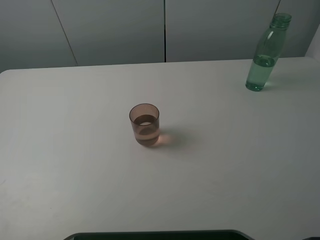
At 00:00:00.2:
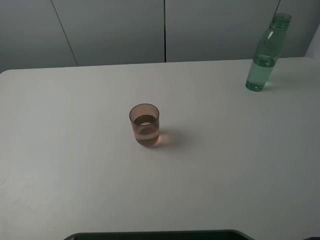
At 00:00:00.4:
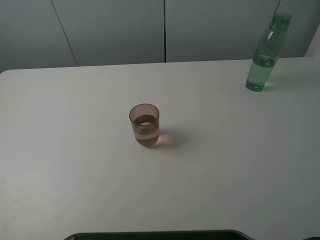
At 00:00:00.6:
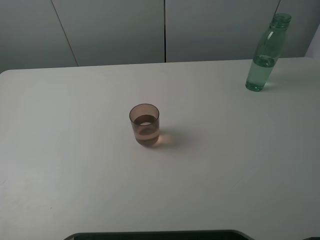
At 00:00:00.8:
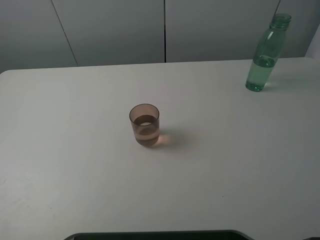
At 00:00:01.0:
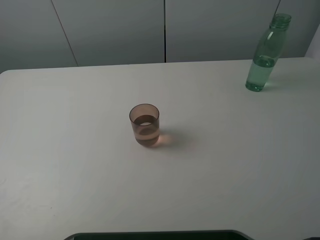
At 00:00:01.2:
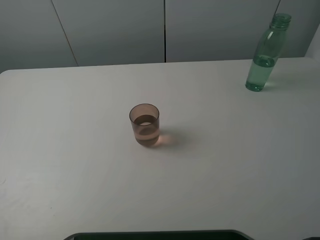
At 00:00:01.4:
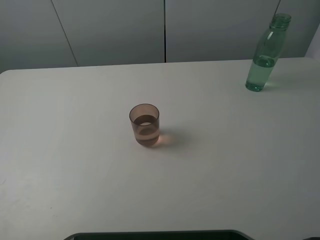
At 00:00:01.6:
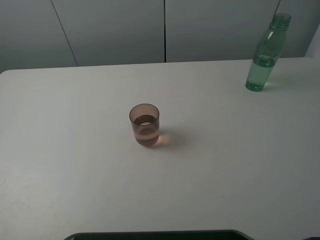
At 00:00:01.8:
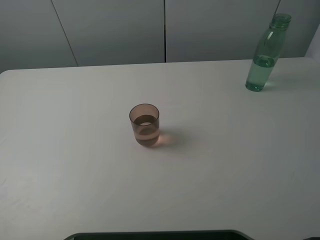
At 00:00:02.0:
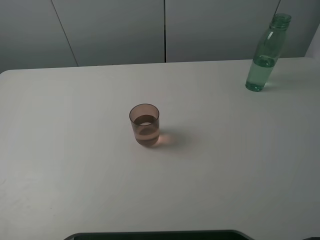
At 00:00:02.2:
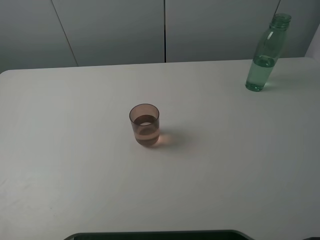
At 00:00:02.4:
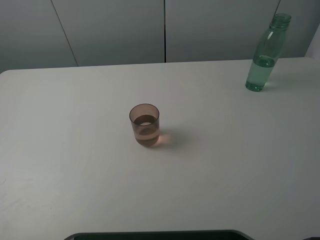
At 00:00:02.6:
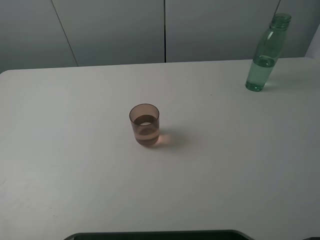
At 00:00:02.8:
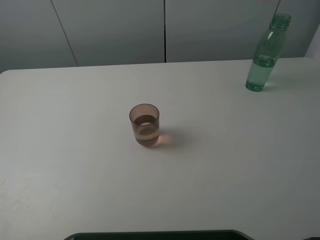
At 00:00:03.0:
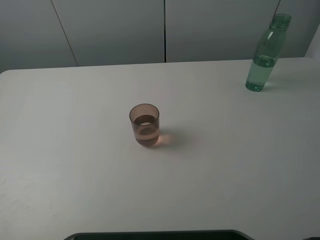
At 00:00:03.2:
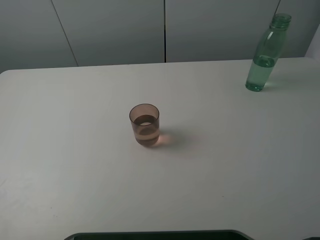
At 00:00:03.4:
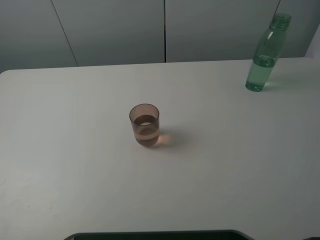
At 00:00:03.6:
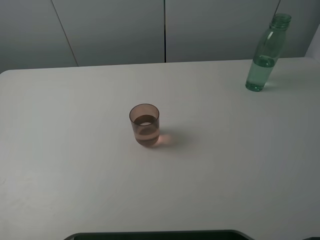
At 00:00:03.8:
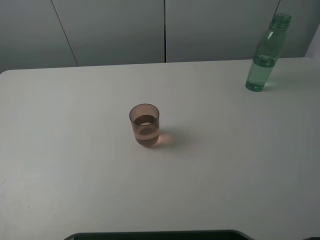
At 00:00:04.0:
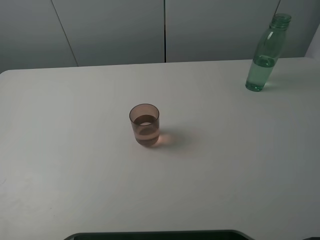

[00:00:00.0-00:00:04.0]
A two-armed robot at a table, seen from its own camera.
Task of the whole recording: pick up the bottle filled with water and pour it into the pink cup.
00:00:01.4 to 00:00:04.0: Both grippers stay put.
